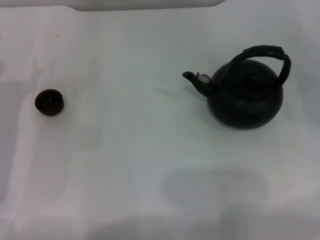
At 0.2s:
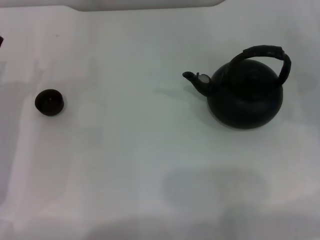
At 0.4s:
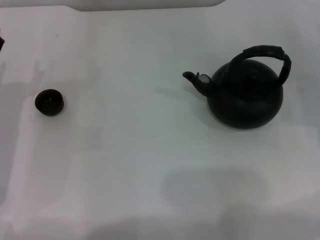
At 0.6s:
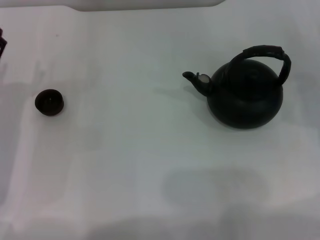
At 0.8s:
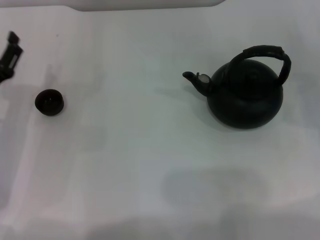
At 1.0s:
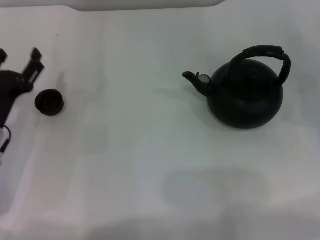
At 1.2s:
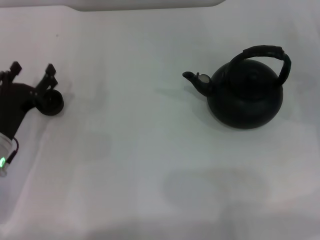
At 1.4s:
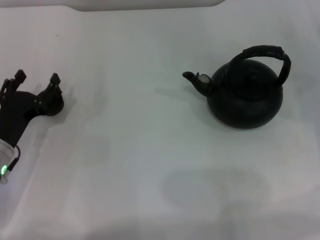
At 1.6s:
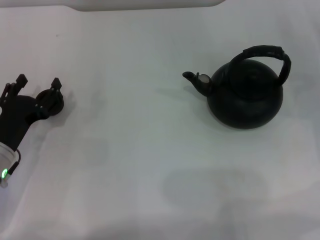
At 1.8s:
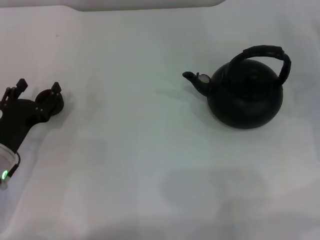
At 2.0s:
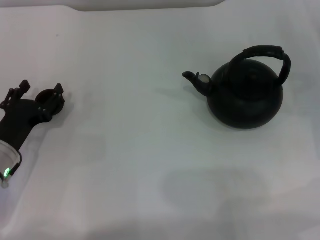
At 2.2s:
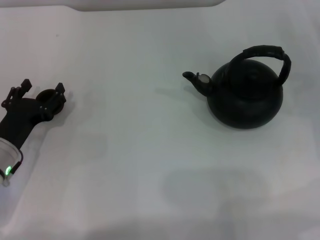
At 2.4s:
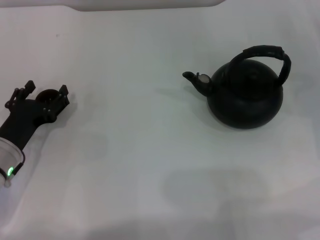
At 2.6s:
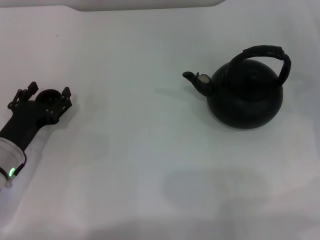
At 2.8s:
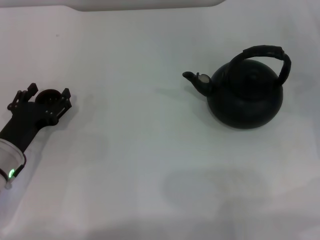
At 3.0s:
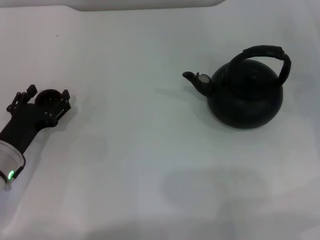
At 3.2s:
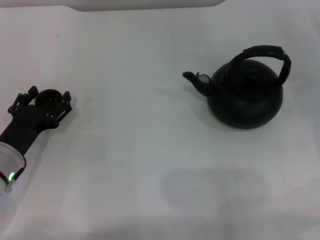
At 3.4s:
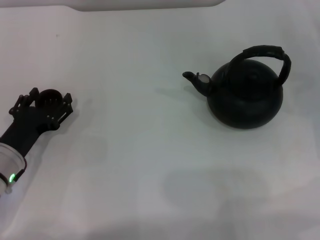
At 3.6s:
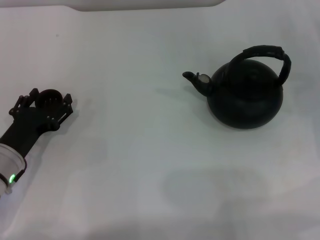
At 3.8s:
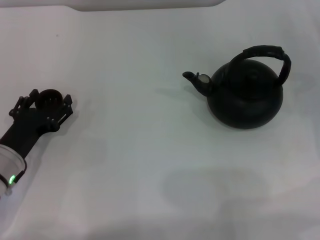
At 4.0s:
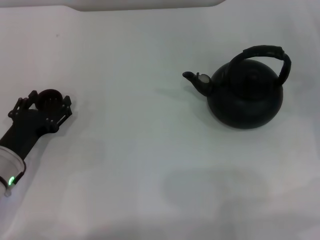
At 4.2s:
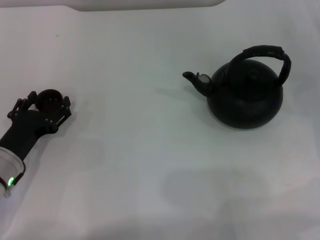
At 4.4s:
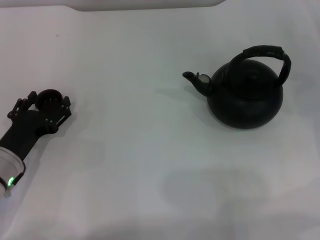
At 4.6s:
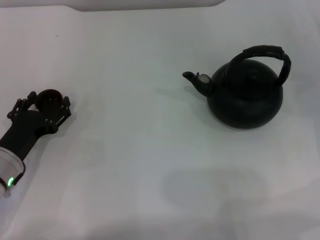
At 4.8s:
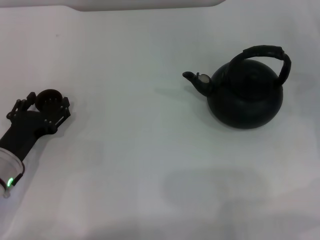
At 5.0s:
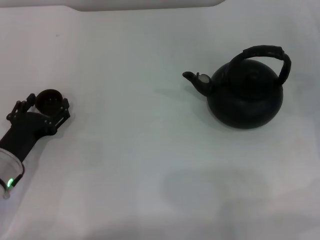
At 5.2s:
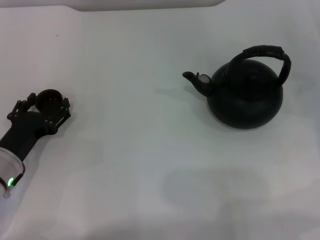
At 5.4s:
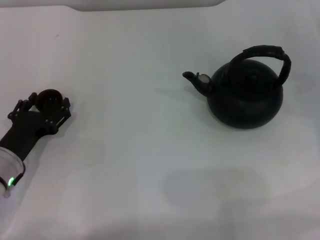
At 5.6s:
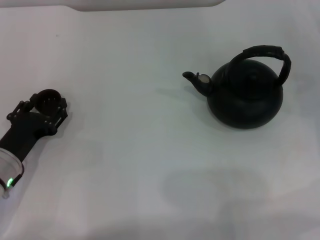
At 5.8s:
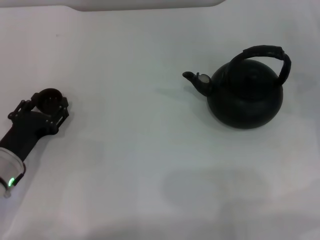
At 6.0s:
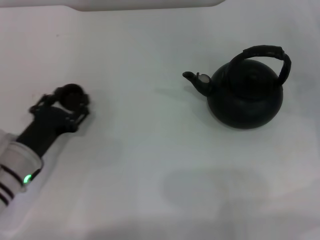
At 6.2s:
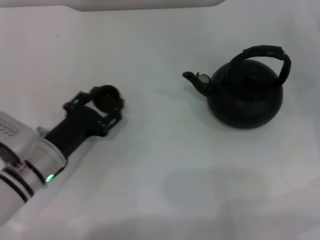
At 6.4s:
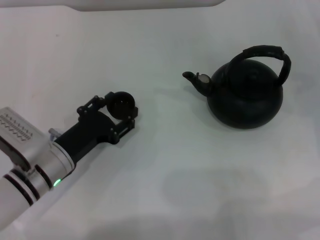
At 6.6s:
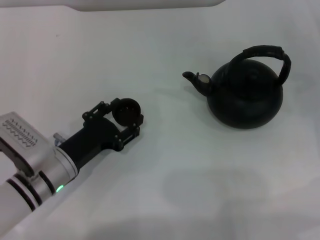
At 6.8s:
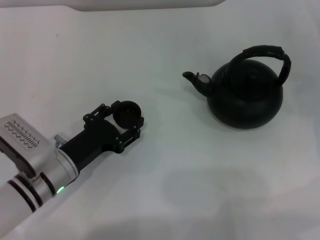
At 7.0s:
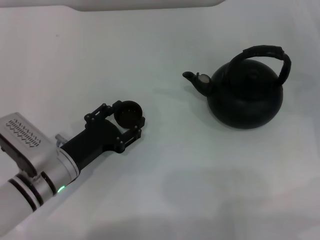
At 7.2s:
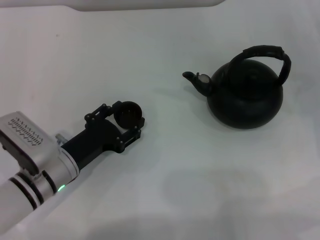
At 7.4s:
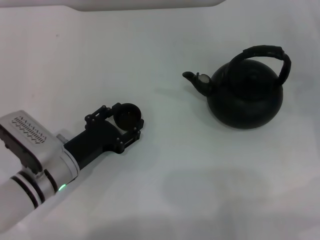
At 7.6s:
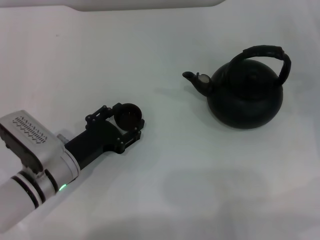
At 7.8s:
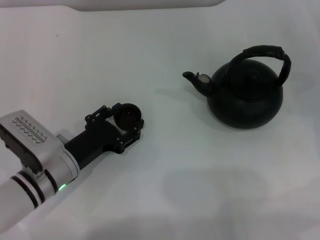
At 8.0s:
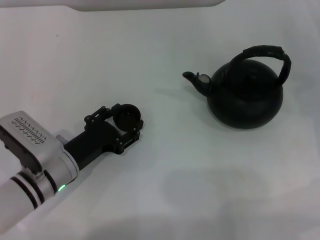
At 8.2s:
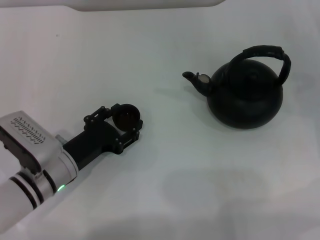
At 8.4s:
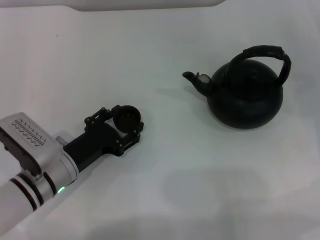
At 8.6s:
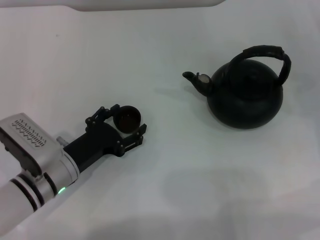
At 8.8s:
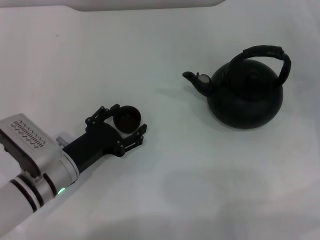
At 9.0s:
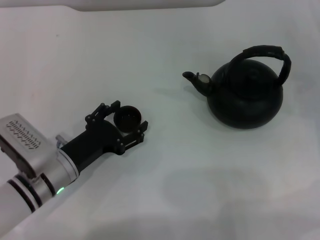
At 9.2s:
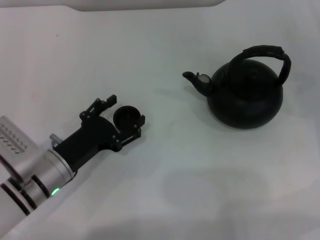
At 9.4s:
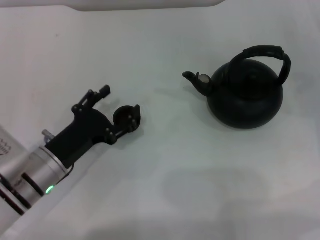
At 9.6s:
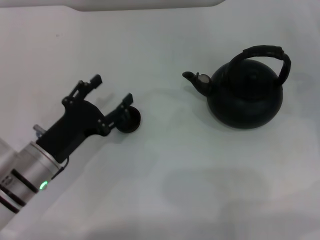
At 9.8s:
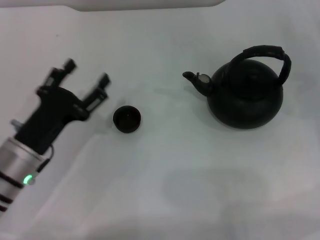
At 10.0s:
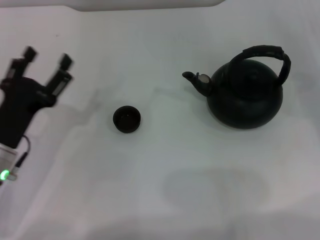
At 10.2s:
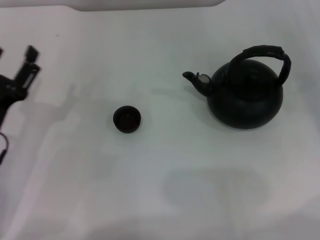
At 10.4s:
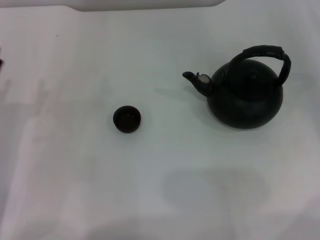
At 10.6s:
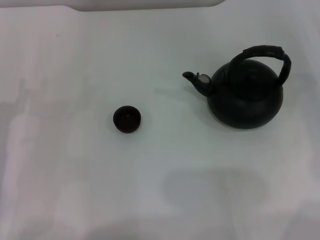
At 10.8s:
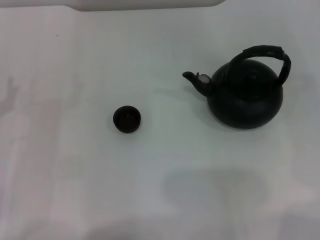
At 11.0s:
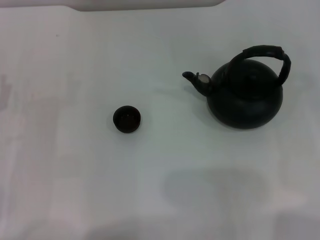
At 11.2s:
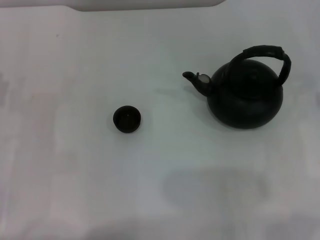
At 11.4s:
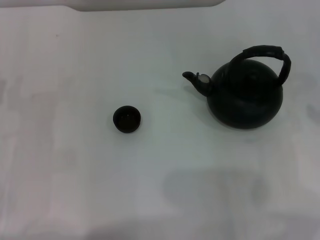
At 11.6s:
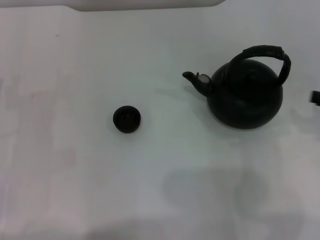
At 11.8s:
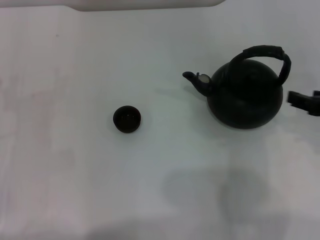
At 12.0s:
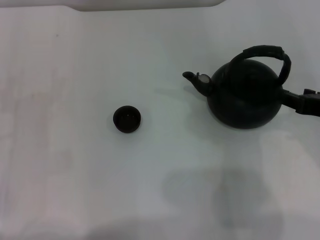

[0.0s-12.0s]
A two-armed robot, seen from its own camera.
Task of the whole recording: Grasp the handle of the teapot with one hand and pour tea into the teacup.
Step, 0.0s to 6.0s: Pick up the teacup with the left gripper.
Step, 6.2s to 9.6s: Place the teacup in the center of view with the left gripper.
0.0s to 1.6s: The left gripper moves about 5 cm.
1.6s to 3.0s: There are only small adjustments of the grippers.
3.0s to 4.4s: Neither gripper changes place.
4.4s to 6.0s: The left gripper closes its fingers.
6.0s to 7.6s: There are only small adjustments of the grippers.
7.6s to 9.0s: The left gripper opens its fingers.
9.0s to 10.4s: The left gripper is displaced to the left by some 10 cm. Meanwhile the right gripper shifts some 10 cm upward.
10.4s to 12.0s: The right gripper is displaced to the left and backward by approximately 20 cm.

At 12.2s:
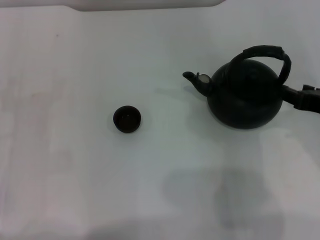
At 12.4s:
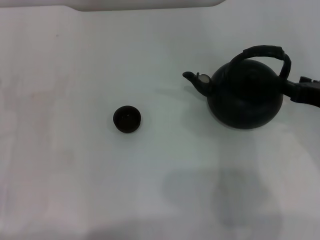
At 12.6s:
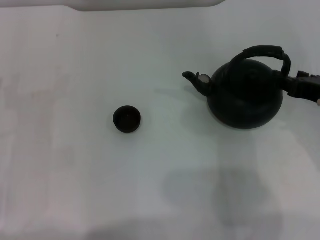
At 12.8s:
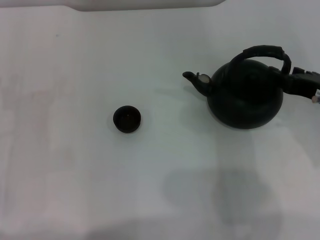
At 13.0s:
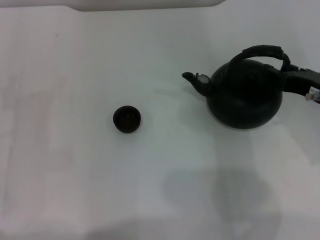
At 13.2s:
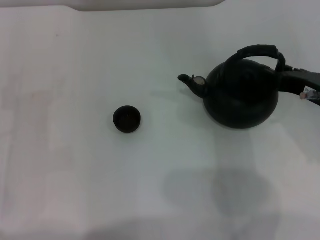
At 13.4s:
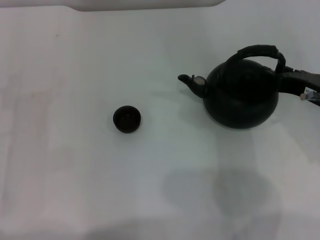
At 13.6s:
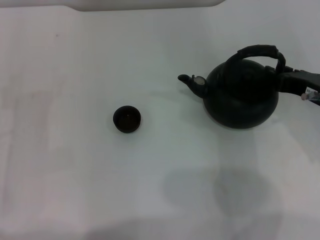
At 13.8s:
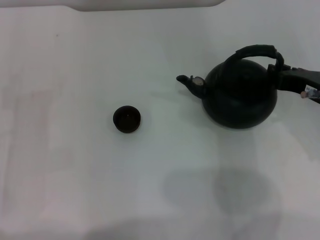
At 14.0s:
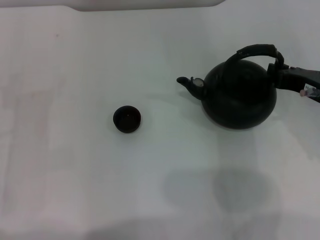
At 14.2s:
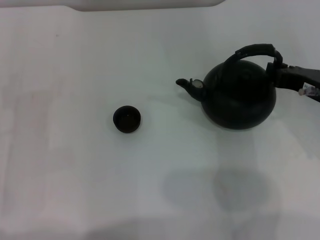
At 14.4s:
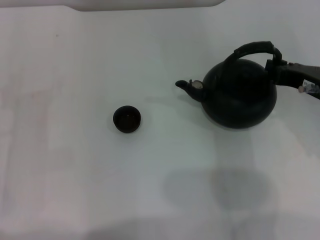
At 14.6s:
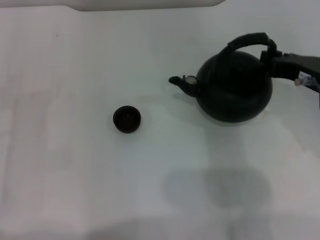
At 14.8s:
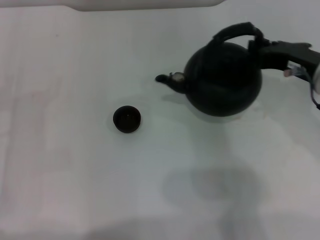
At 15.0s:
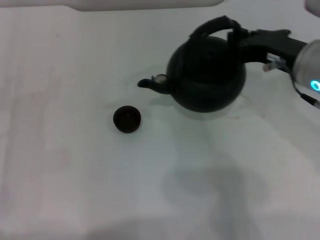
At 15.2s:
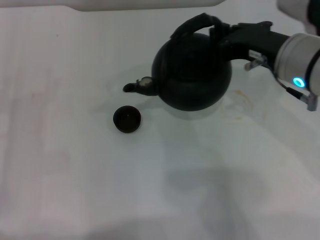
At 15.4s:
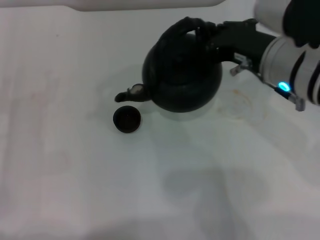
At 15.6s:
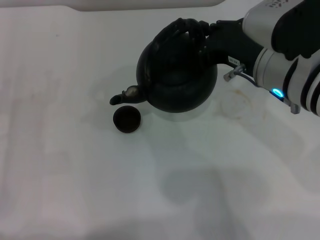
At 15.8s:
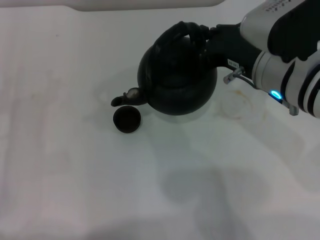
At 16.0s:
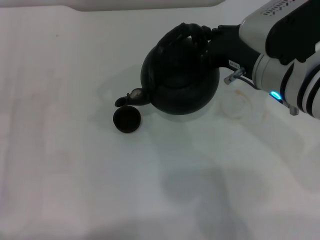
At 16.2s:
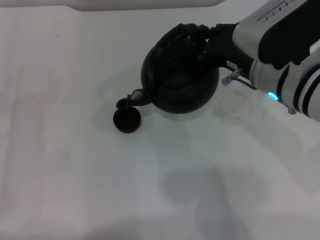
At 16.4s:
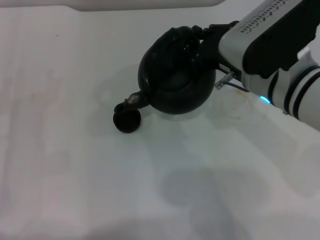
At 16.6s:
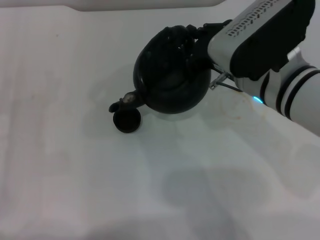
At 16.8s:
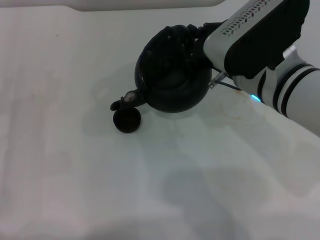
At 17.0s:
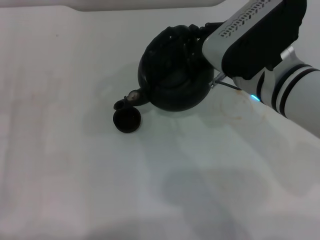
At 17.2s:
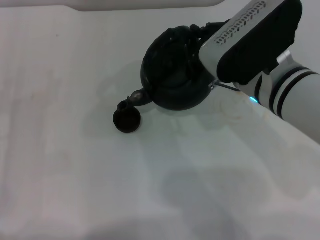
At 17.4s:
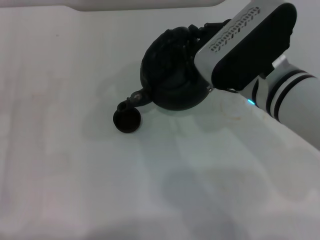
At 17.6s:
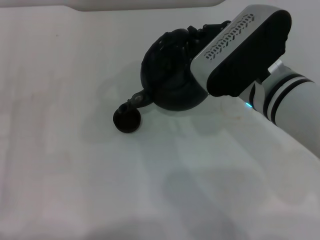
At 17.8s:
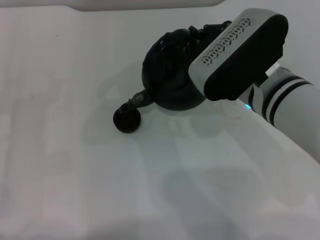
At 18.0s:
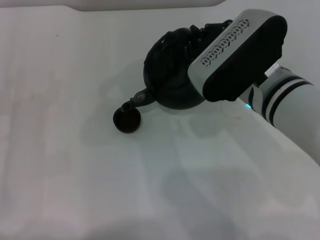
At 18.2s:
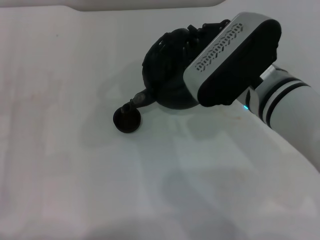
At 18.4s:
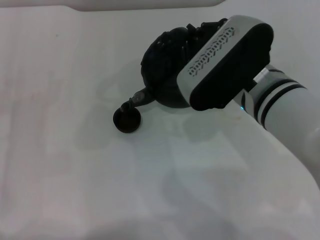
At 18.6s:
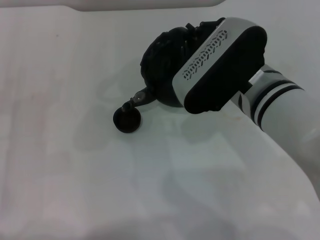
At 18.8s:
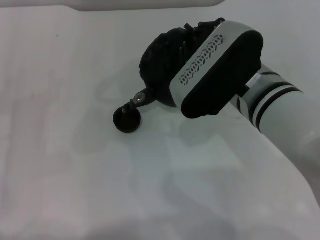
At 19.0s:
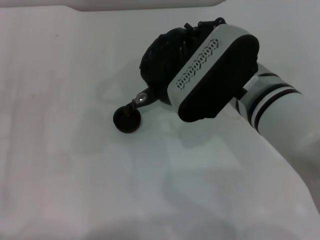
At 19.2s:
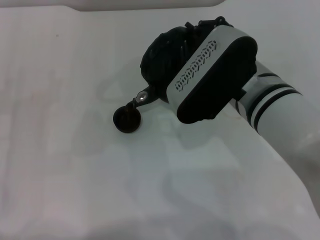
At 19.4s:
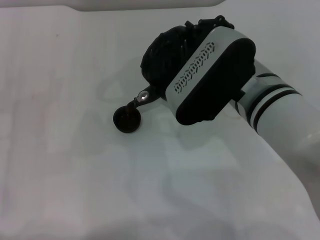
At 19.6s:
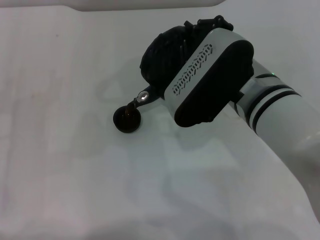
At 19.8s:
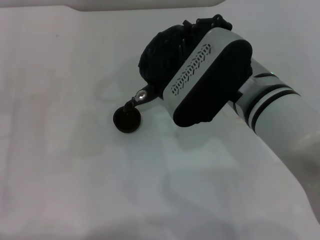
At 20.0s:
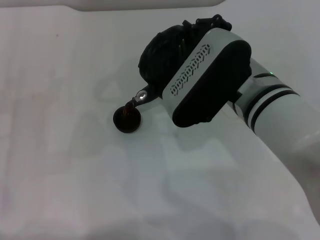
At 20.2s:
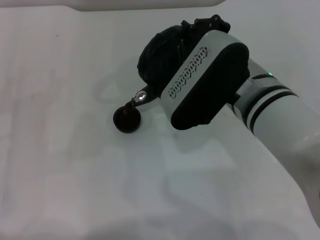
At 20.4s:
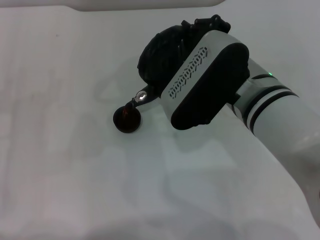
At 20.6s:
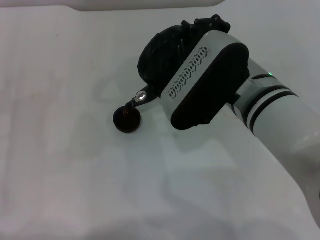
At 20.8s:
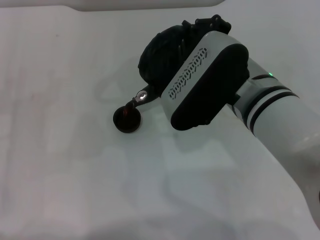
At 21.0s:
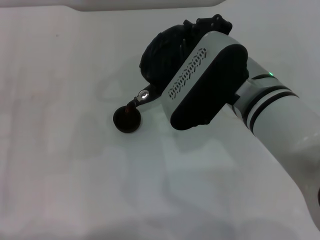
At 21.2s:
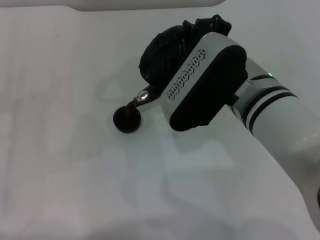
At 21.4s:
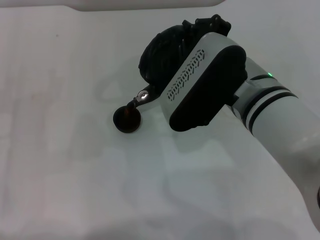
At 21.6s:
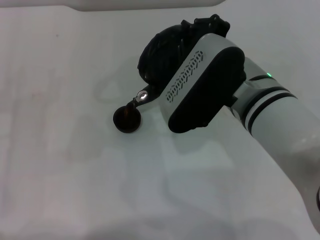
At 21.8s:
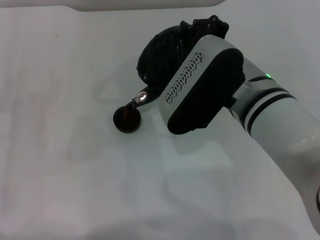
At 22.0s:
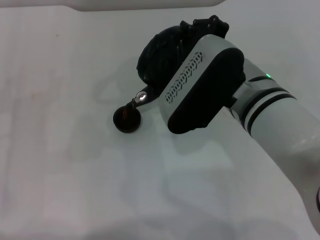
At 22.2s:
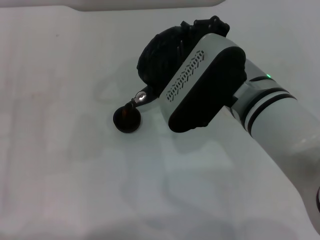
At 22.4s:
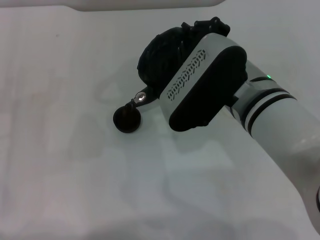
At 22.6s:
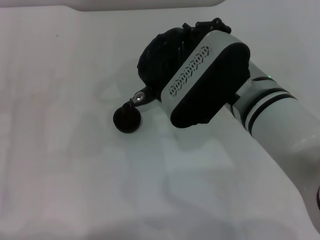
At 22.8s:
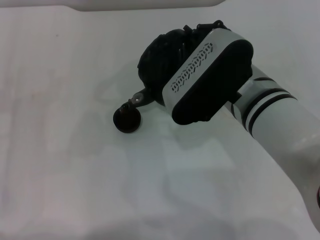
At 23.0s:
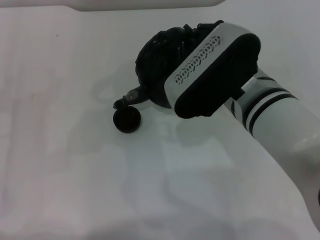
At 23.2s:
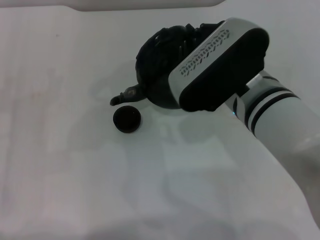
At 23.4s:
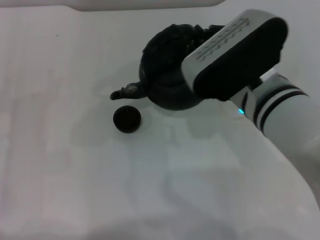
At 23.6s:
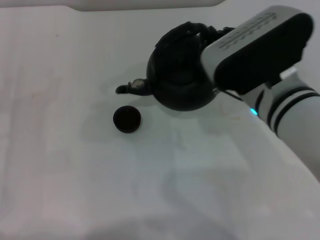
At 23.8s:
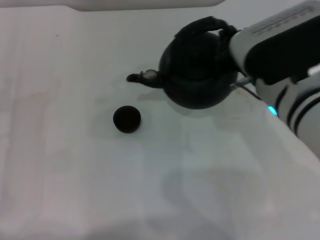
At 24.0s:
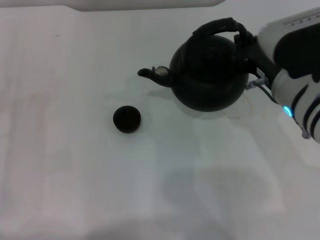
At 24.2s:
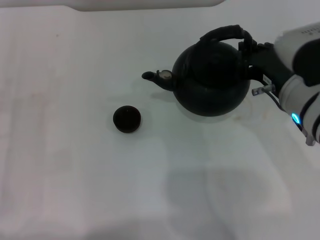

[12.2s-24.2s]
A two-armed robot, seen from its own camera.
Task of the whole recording: Grasp the handle of the teapot with one hand and pour tea into the teacup.
Step, 12.2s to 14.6s: Pick up the teapot with the right gripper.
Step, 15.0s to 23.0s: Pour tea into the teacup with the right gripper.
12.2s to 13.8s: The grippers make only small movements.
13.8s to 15.2s: The right gripper heads to the left, covering approximately 5 cm.
15.2s to 16.6s: The grippers move only a little.
16.6s to 18.2s: There are only small adjustments of the grippers.
18.2s to 19.8s: There are only small adjustments of the grippers.
19.8s to 22.6s: The two grippers keep their place.
22.6s to 24.2s: The right gripper shifts roughly 5 cm to the right.
